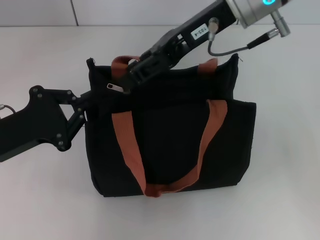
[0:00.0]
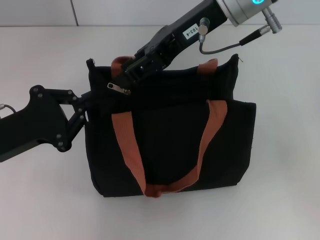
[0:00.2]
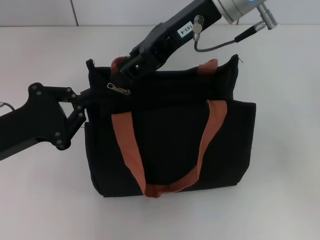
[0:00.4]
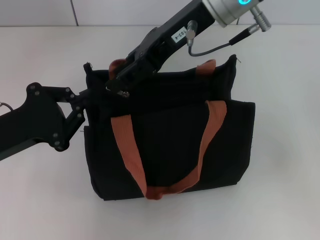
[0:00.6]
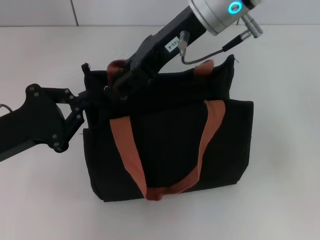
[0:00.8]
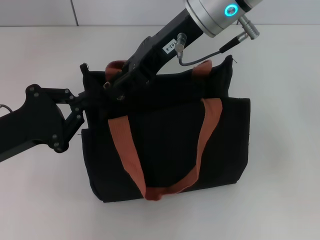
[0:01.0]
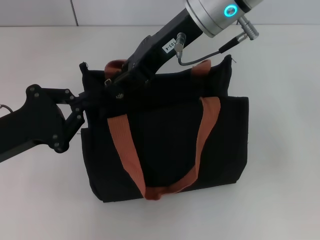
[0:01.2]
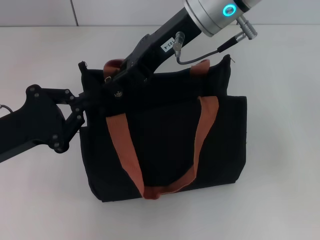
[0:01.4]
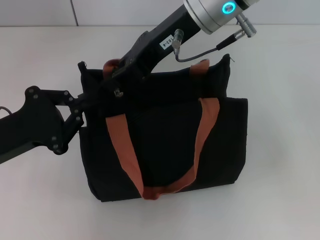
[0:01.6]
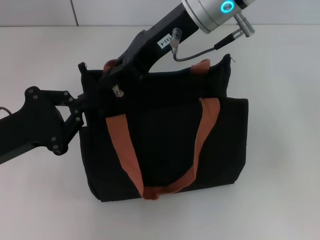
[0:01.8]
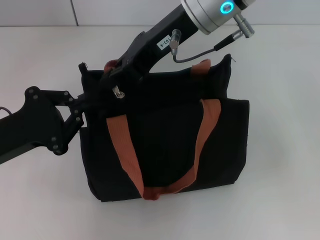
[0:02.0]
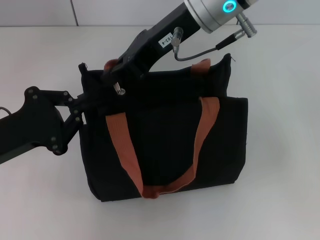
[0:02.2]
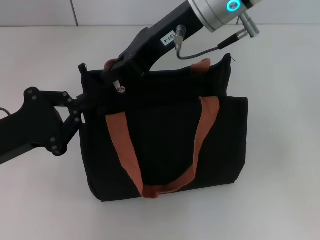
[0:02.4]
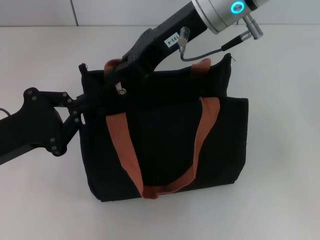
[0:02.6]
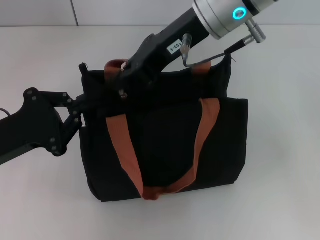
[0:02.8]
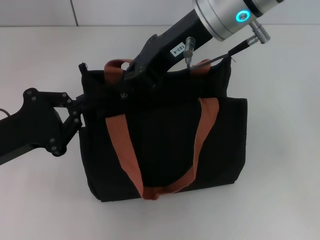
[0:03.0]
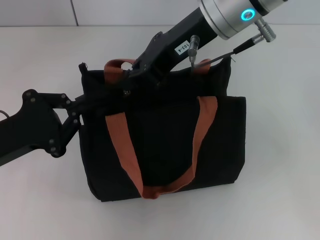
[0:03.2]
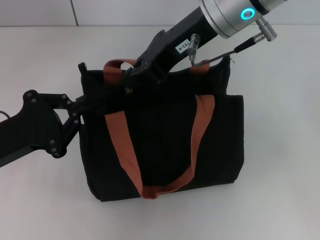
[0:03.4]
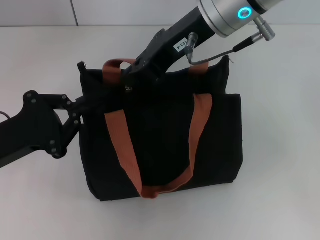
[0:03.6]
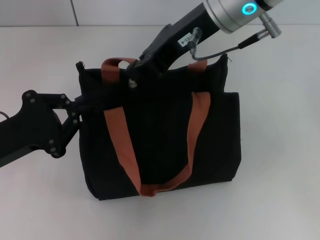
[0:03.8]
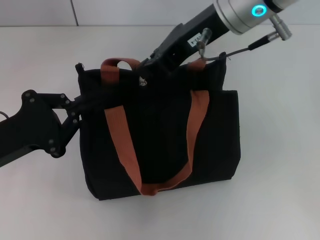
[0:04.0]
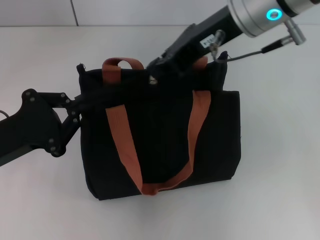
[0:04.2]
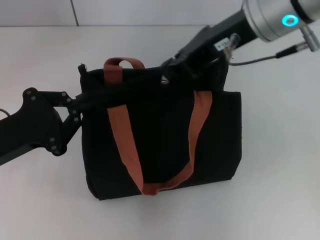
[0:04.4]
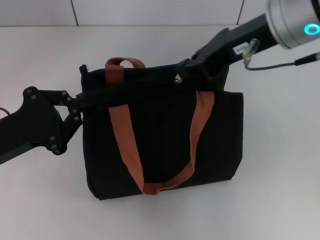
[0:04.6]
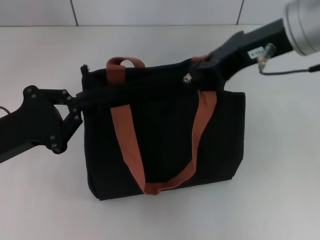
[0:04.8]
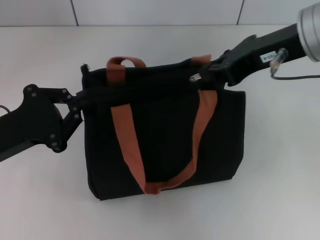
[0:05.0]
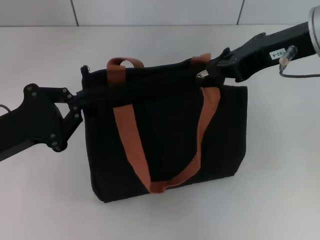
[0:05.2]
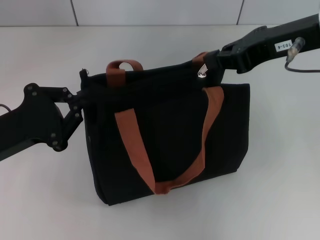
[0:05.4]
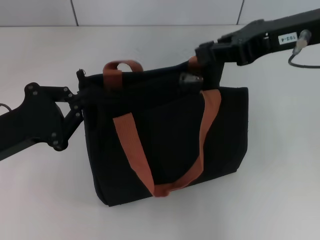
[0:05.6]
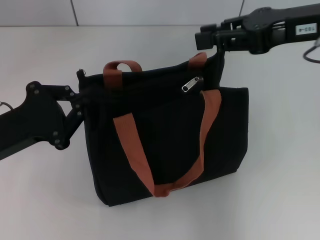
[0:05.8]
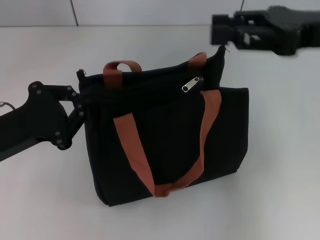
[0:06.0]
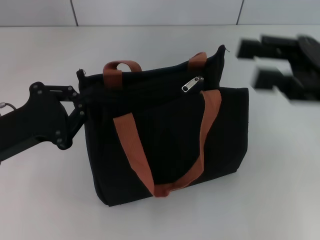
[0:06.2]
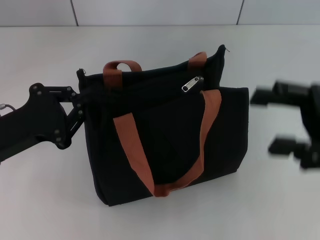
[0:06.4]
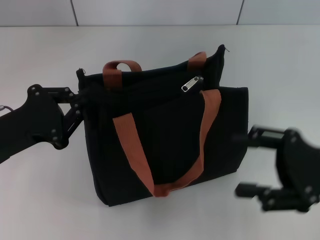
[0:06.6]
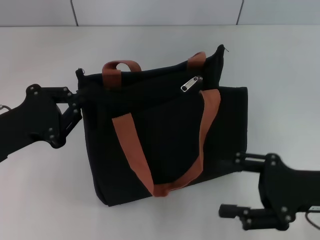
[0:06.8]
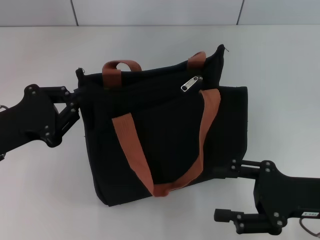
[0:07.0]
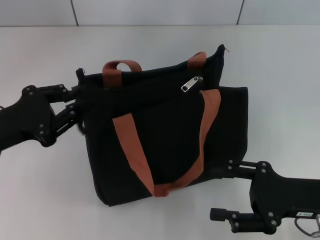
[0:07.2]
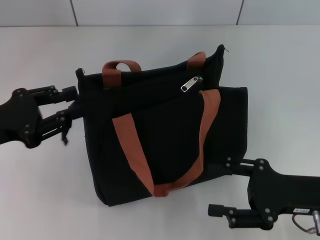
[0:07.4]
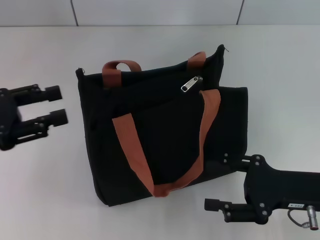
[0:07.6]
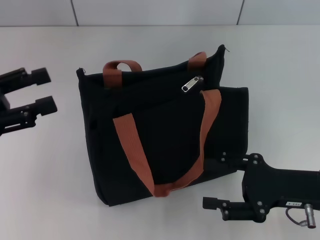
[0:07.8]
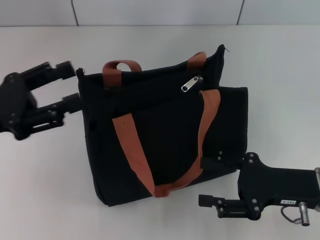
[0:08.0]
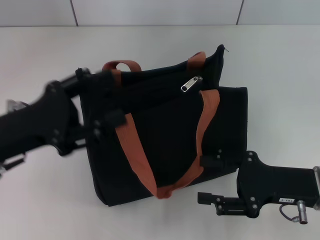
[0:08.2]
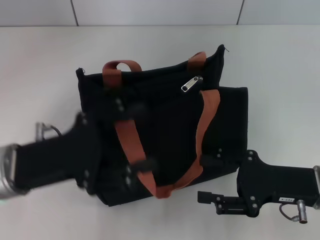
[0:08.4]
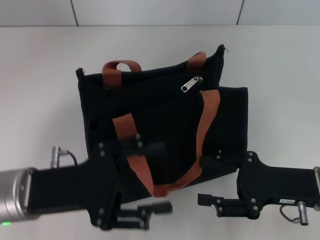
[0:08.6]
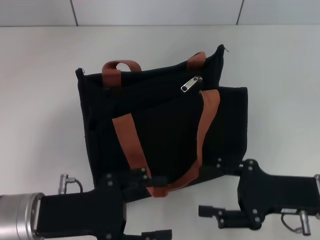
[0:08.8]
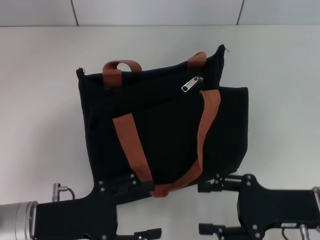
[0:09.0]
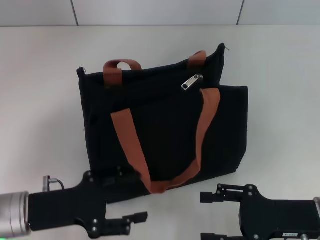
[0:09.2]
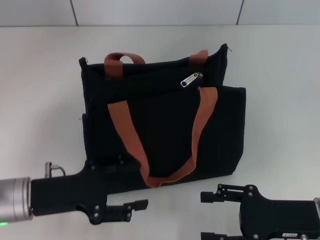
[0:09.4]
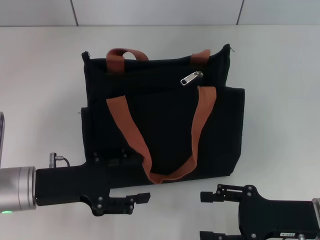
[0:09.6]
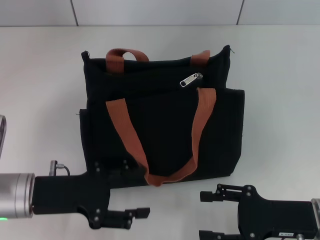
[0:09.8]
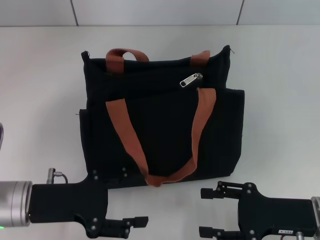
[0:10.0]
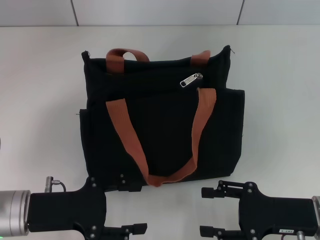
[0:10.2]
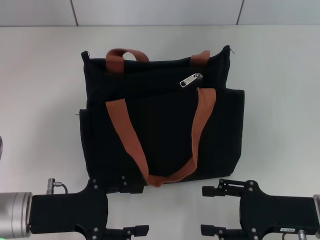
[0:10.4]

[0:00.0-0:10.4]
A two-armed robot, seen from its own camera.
Step, 0:00.0 to 0:05.8: Pull up the zipper with your right hand.
Step, 0:06.0 to 0:07.6: Grab the zipper with your left hand.
0:00.0 to 0:01.4: The right gripper closes up.
0:01.4 to 0:03.0: The grippers move only a little.
0:03.0 to 0:04.4: The right gripper heads to the right, covering roughly 5 cm.
0:04.4 to 0:06.0: The right gripper heads to the right, covering roughly 10 cm.
0:06.0 to 0:07.4: The right gripper travels downward and backward by about 20 cm, and opens.
0:07.4 to 0:09.0: The left gripper moves to the right, downward and backward, some 15 cm, and opens its fingers.
0:09.0 to 0:10.4: The grippers stay close to where they were, moving slightly.

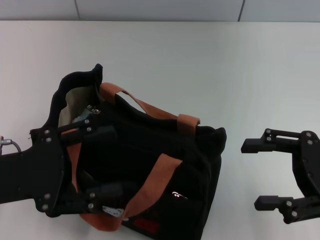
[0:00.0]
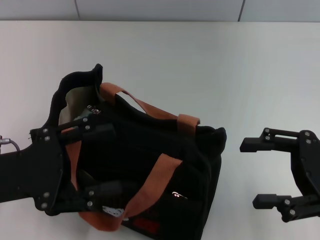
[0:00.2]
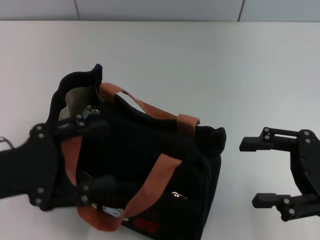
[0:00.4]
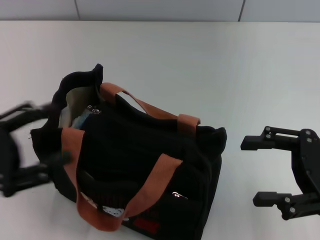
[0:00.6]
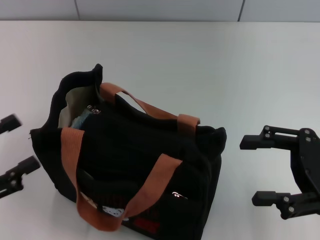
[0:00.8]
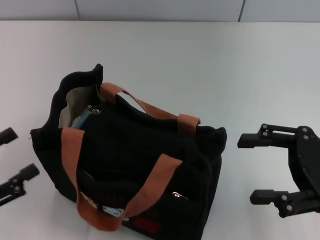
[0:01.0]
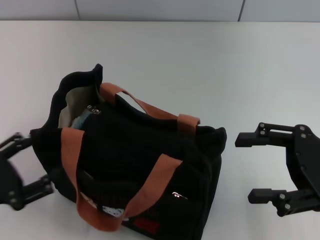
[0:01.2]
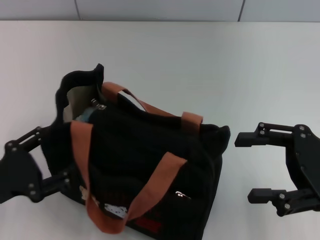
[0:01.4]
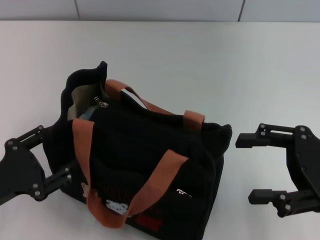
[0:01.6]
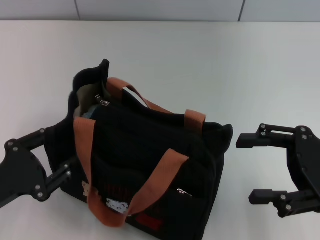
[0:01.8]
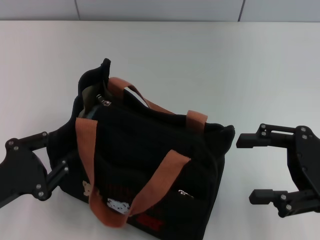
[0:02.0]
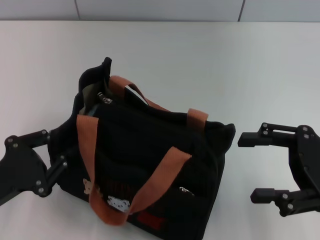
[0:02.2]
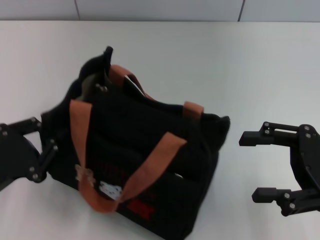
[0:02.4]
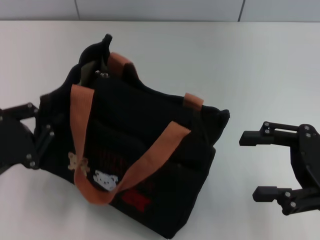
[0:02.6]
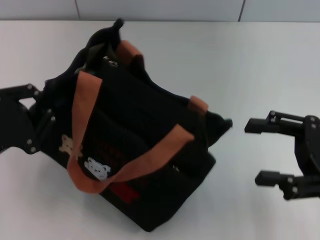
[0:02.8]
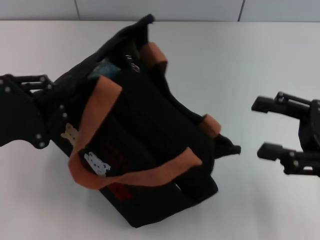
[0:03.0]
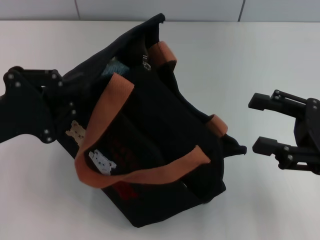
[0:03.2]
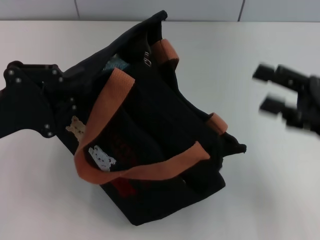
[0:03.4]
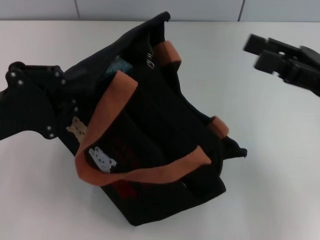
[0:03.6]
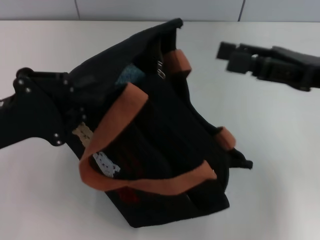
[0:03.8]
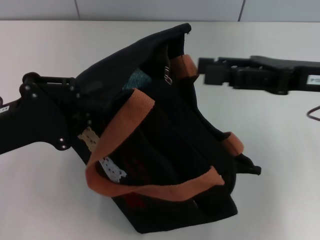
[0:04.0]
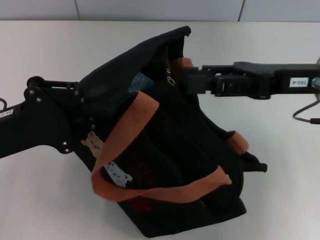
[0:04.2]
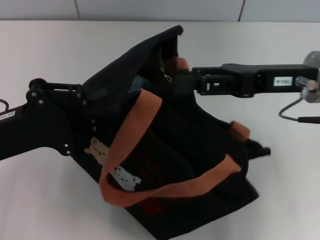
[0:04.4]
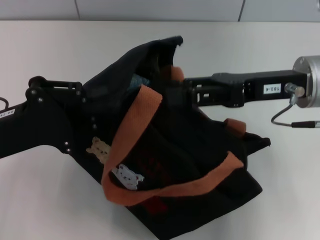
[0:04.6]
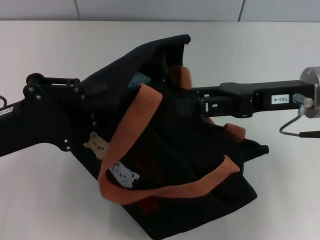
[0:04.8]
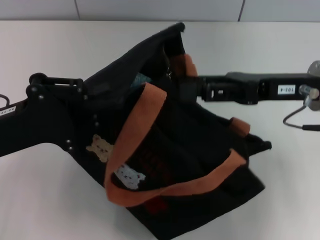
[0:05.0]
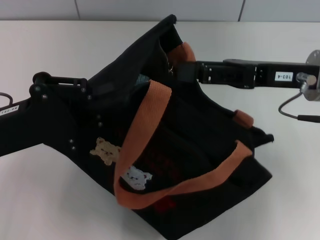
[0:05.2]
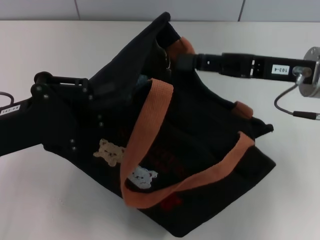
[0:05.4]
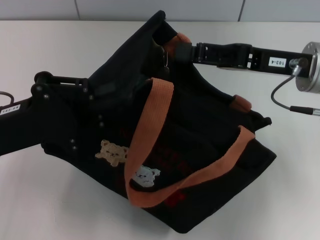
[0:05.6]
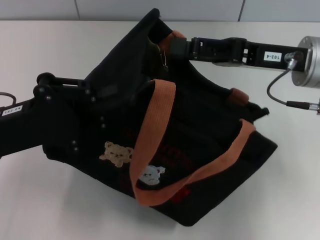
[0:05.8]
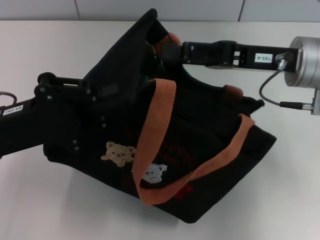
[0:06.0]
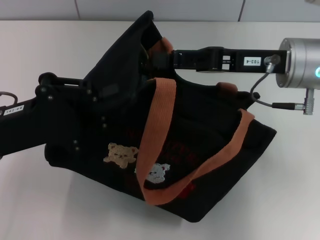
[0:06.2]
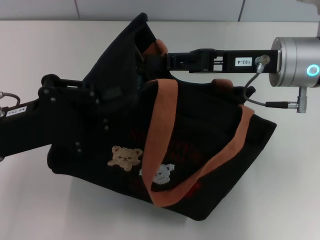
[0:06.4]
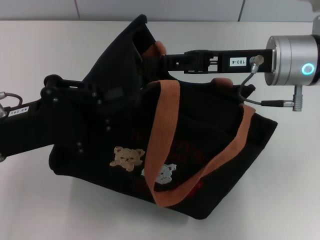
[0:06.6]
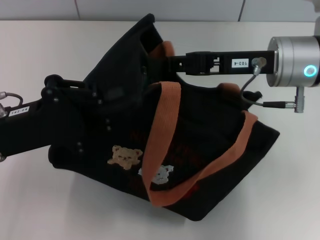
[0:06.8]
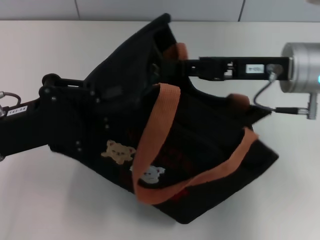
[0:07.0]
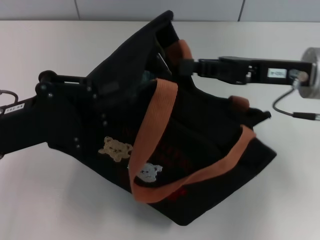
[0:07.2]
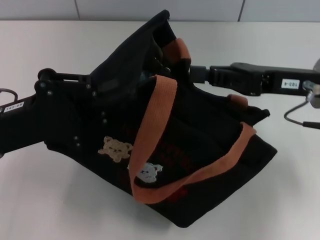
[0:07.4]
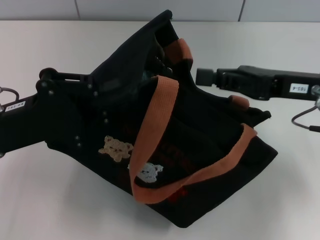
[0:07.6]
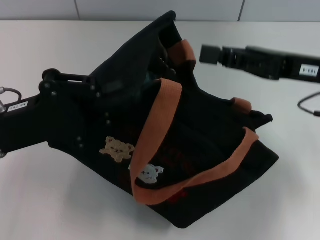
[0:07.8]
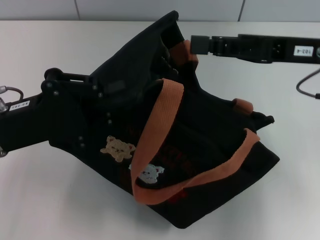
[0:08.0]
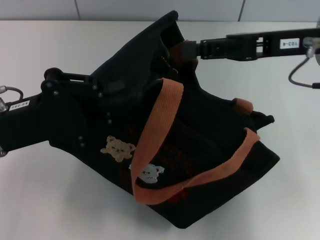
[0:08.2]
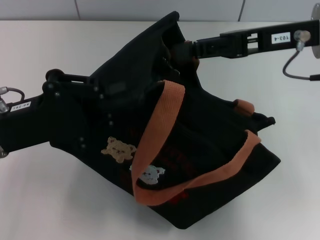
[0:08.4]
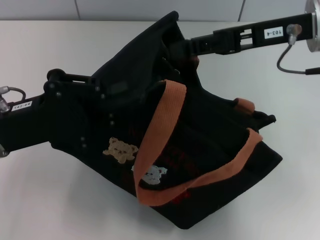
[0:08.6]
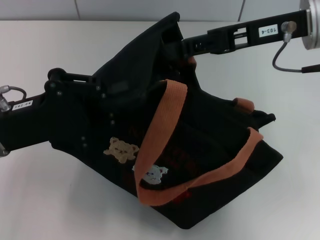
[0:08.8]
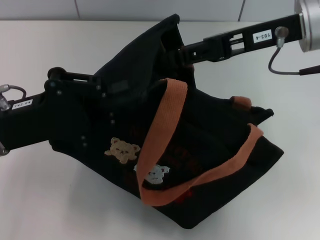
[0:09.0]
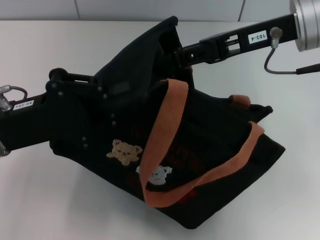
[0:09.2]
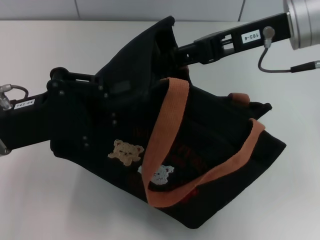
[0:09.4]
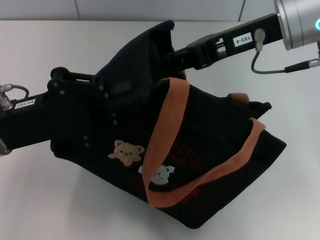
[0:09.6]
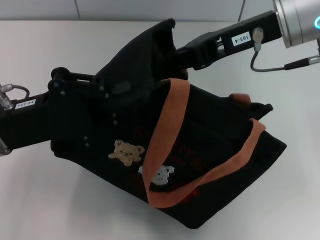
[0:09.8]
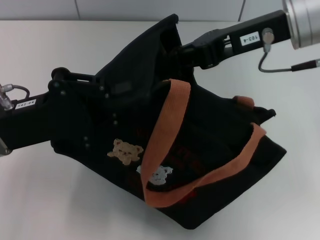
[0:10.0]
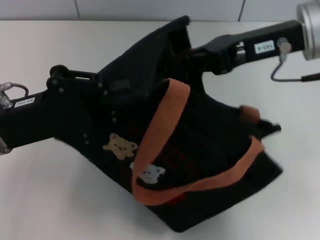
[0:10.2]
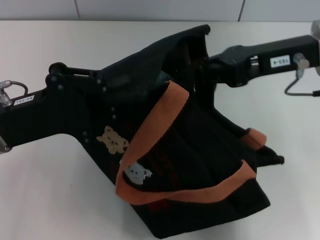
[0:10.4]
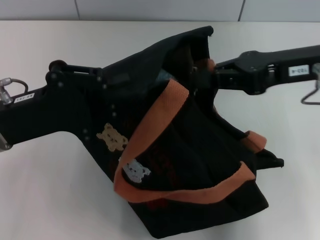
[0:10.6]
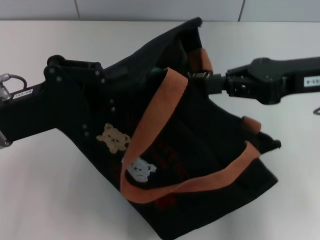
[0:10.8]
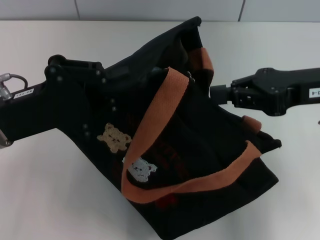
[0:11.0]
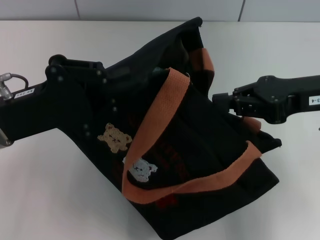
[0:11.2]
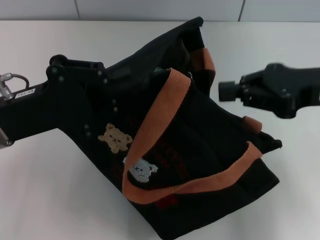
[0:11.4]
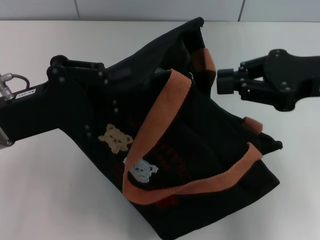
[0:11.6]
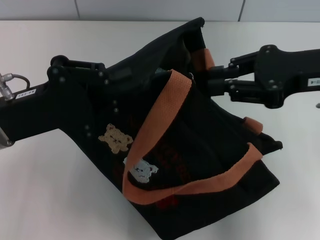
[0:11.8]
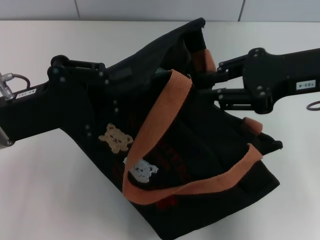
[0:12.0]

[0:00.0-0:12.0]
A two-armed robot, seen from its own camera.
0:00.0 to 0:01.6: The left gripper shifts about 5 cm downward.
0:01.6 to 0:03.0: The left gripper travels upward and forward by some 10 cm, and closes up.
0:03.0 to 0:04.4: The right gripper shifts about 10 cm to the left and forward.
0:06.0 to 0:07.6: The right gripper closes.
0:07.6 to 0:09.0: The right gripper is displaced upward by some 10 cm, and opens up.
0:09.0 to 0:10.4: The right gripper closes.
